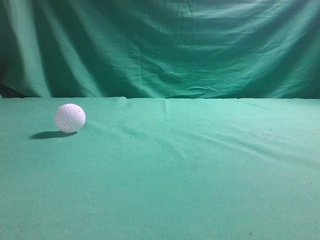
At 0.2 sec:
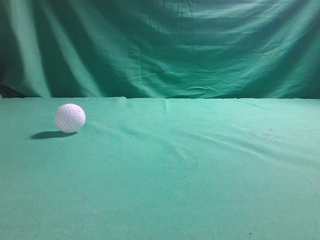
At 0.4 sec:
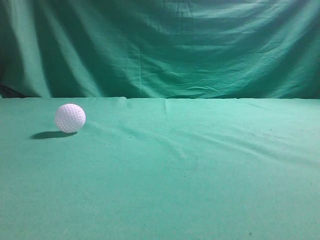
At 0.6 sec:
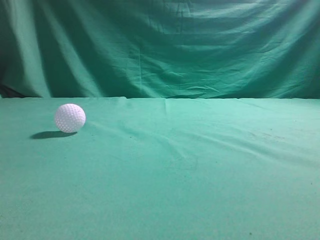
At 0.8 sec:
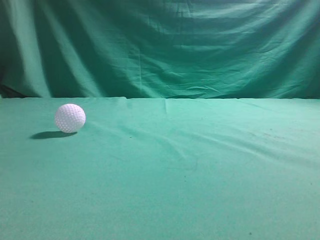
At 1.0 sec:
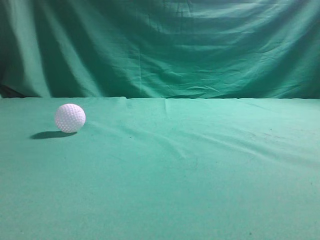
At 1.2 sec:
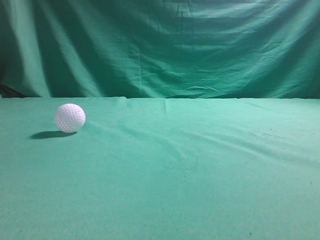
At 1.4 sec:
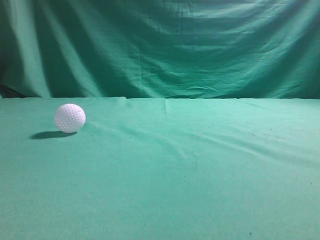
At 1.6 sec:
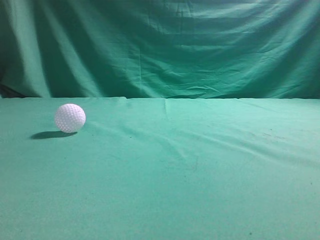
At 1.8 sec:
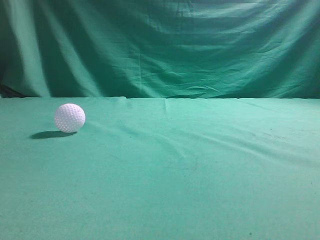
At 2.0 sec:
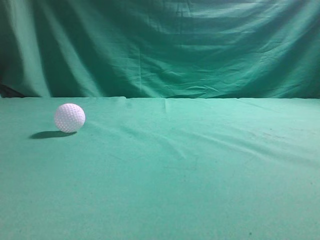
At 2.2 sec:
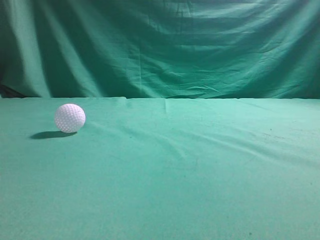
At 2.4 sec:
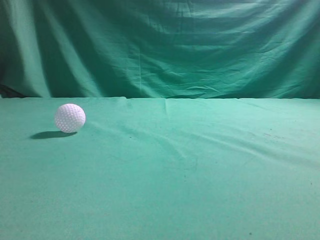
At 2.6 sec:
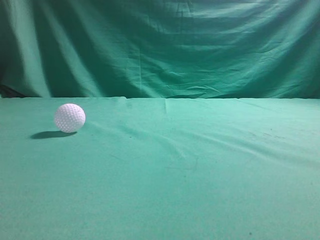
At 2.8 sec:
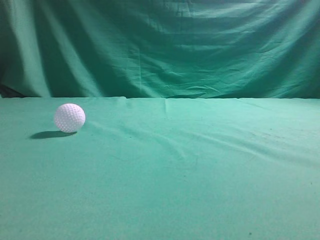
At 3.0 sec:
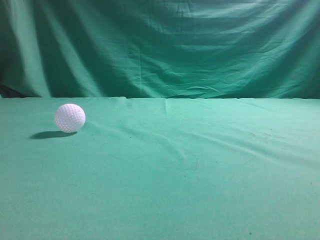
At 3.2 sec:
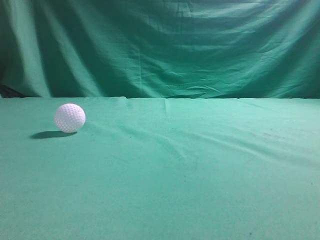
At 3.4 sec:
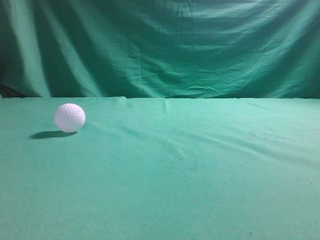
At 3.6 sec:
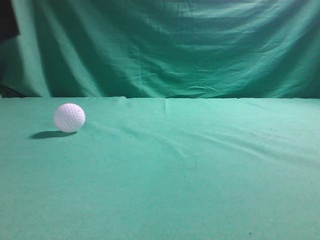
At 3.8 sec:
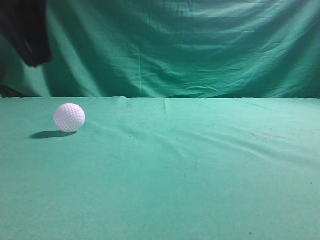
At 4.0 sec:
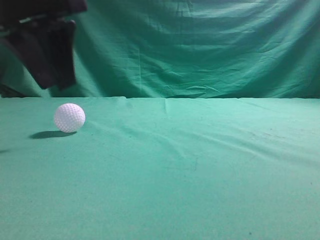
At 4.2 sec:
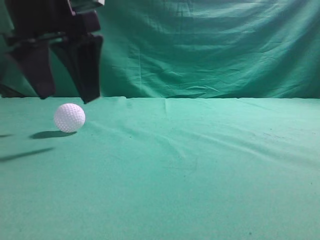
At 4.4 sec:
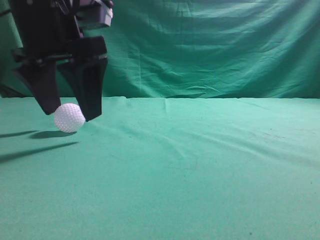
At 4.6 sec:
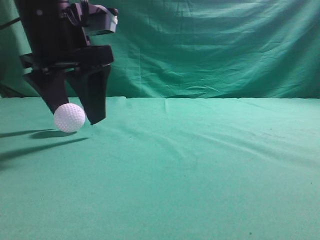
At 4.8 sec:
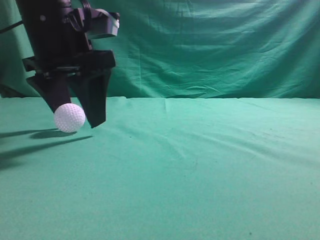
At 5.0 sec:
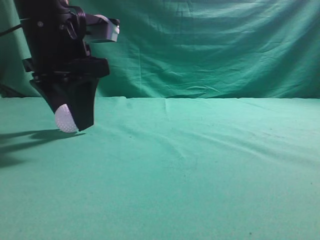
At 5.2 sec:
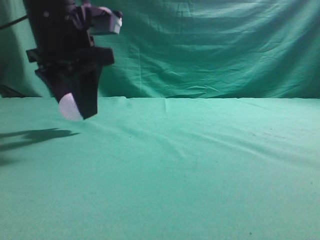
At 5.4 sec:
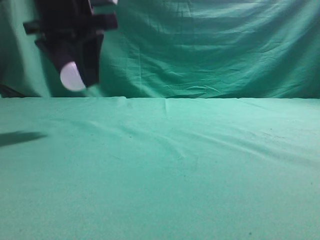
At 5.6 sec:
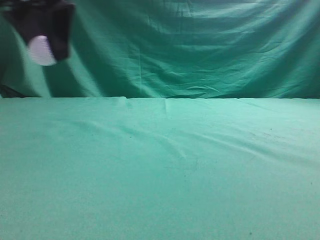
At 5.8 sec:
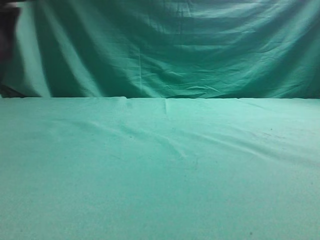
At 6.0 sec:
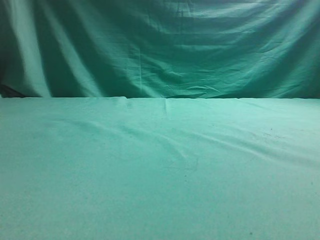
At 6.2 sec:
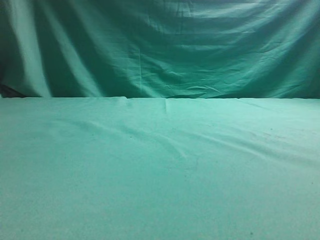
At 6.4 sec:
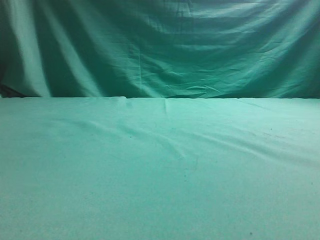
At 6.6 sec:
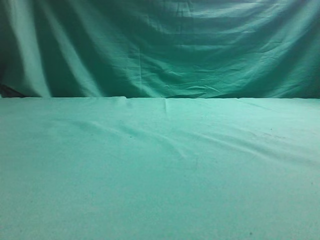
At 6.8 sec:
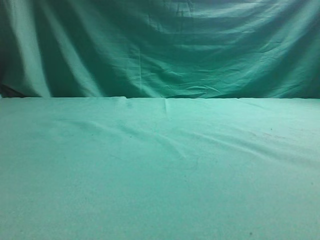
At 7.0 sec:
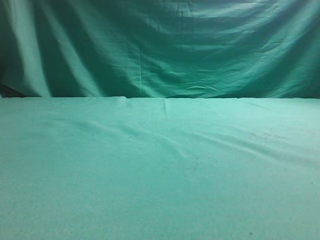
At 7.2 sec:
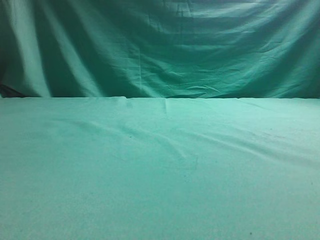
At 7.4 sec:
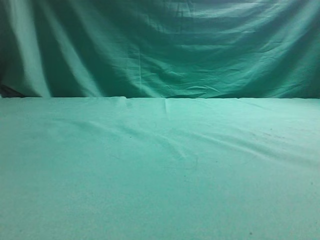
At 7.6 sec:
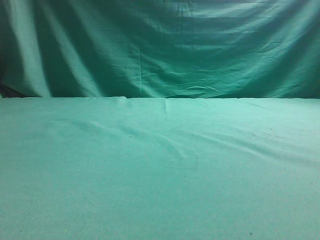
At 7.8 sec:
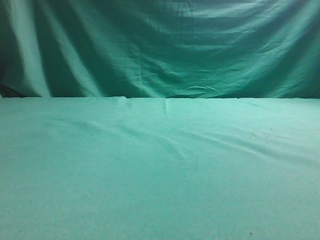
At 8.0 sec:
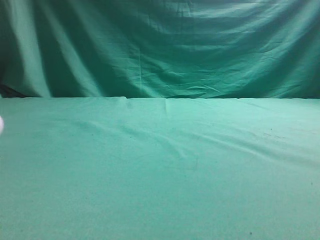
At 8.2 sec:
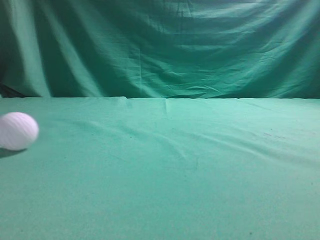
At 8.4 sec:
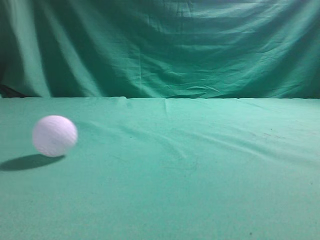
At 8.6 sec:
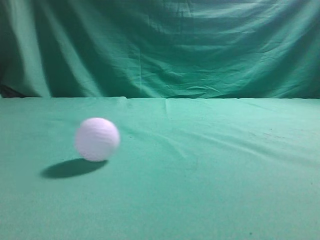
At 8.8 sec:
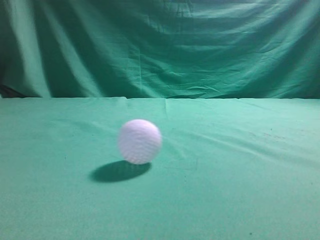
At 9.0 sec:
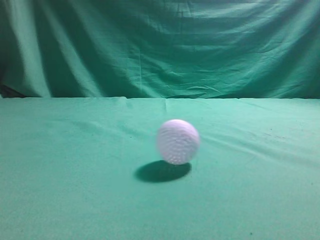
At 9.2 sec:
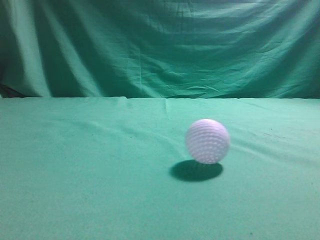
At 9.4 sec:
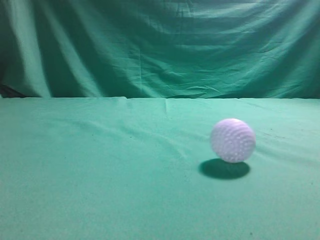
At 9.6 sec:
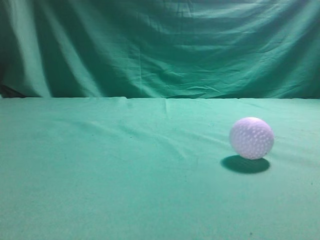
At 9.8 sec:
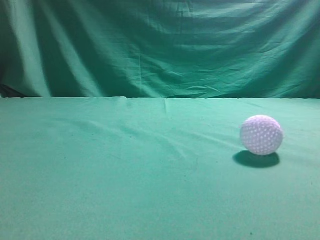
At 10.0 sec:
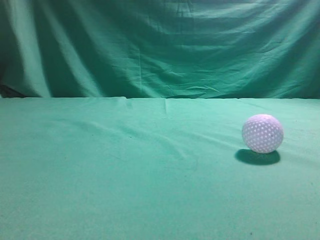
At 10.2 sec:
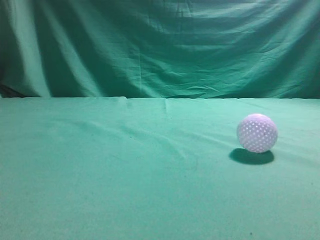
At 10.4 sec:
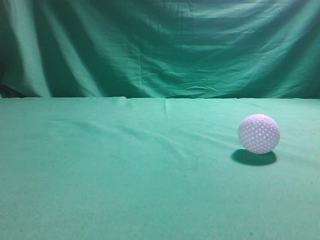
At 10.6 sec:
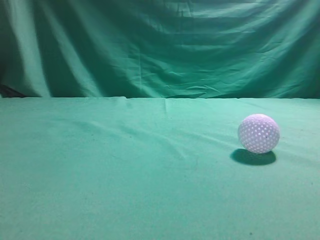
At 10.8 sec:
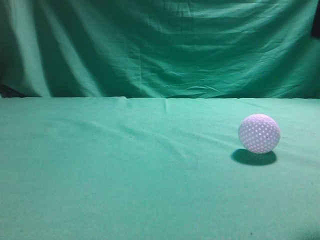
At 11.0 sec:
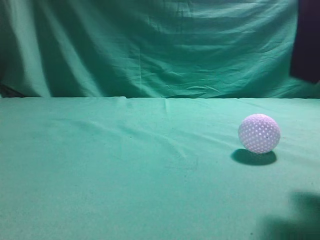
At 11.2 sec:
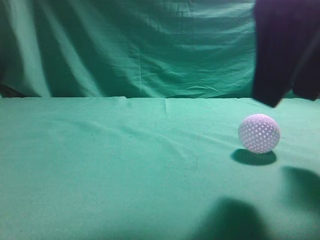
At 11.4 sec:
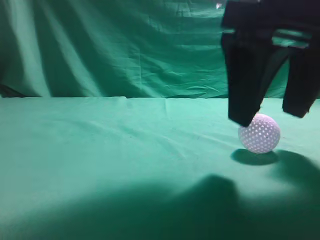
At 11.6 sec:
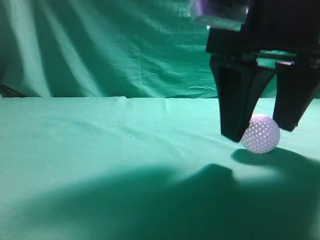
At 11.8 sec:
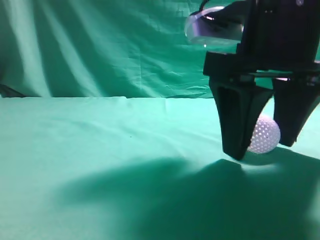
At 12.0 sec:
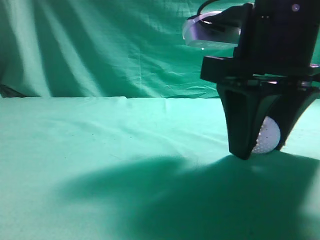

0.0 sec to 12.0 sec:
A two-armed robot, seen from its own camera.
Task of the whole recording: pick up the ball and place it on the plate, then pick up the ball from the plate and put it in the center of the table.
Step, 0.0 sec to 5.2 sec: Grab the spherical object with your left arm.
Step, 5.4 sec to 7.4 sec: Place the sphere on the white object.
3.0 sec to 4.4 sec: The left gripper is displaced forward, to the right and downward by approximately 25 cm, and opens its fingers.
4.4 sec to 6.0 sec: The left gripper travels to the left and upward by approximately 20 cm, and closes.
7.6 sec to 9.0 sec: The left gripper shifts approximately 30 cm backward and upward, and closes.
9.0 sec to 10.4 sec: The right gripper moves upward, forward and to the left, approximately 15 cm, while the left gripper heads downward, covering roughly 10 cm.
10.4 sec to 12.0 sec: The right gripper goes about 20 cm downward, forward and to the left, and opens up.

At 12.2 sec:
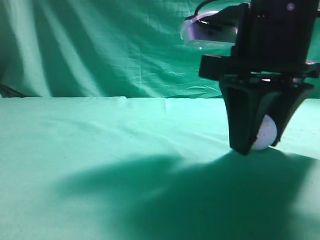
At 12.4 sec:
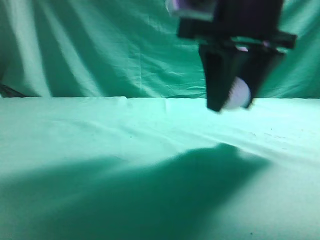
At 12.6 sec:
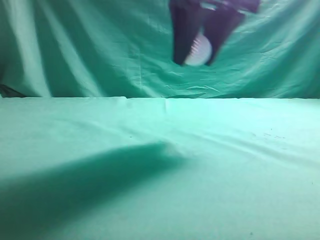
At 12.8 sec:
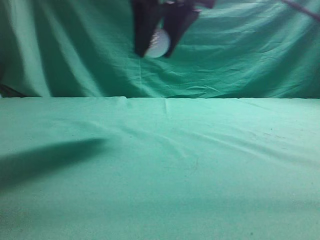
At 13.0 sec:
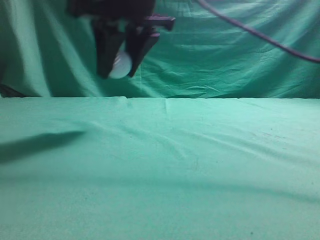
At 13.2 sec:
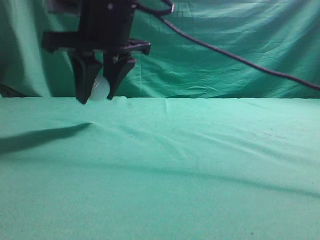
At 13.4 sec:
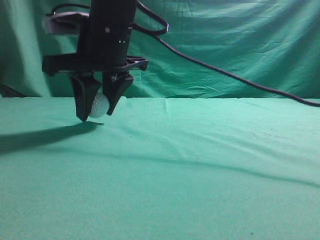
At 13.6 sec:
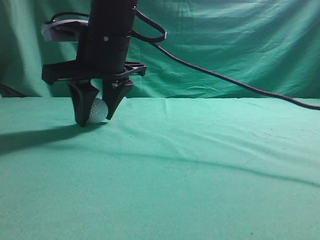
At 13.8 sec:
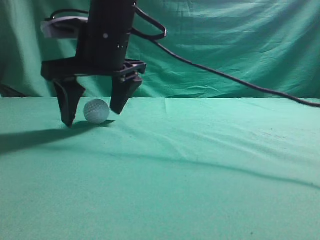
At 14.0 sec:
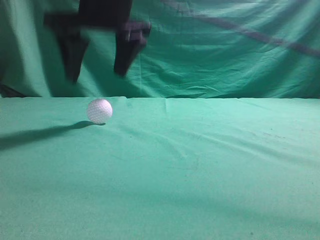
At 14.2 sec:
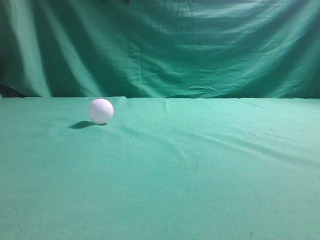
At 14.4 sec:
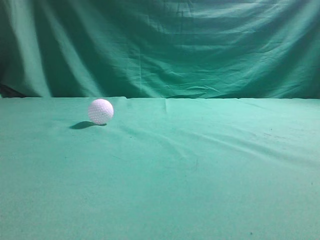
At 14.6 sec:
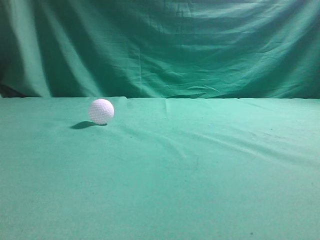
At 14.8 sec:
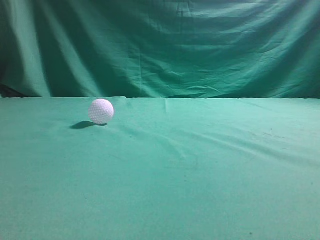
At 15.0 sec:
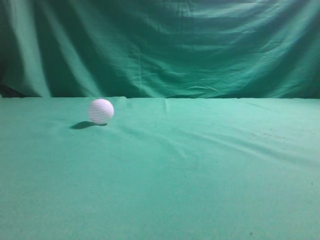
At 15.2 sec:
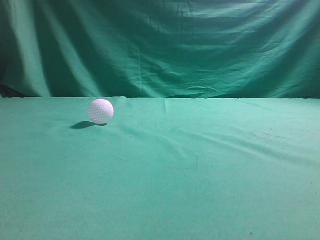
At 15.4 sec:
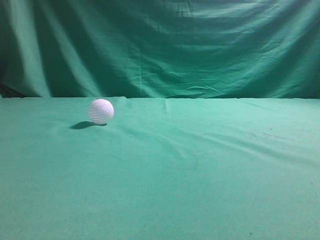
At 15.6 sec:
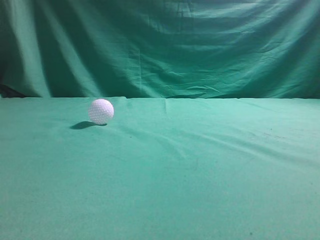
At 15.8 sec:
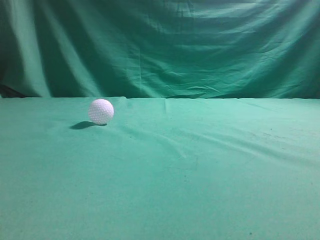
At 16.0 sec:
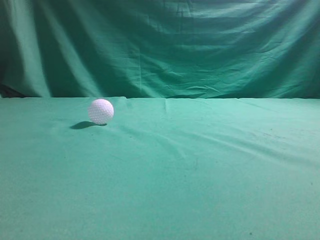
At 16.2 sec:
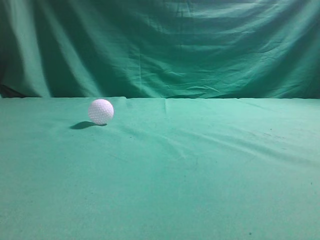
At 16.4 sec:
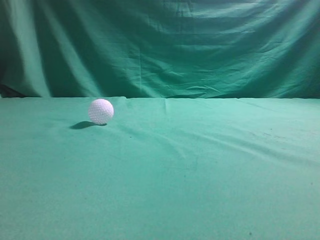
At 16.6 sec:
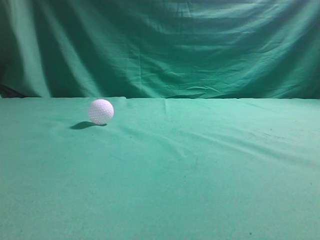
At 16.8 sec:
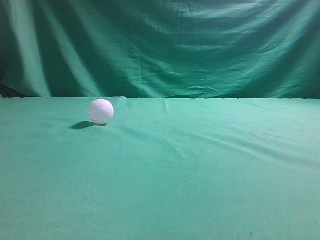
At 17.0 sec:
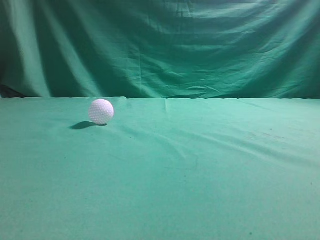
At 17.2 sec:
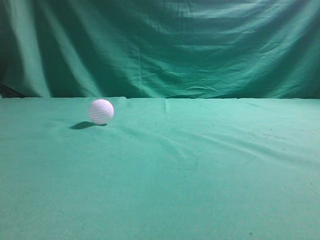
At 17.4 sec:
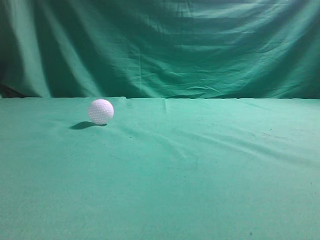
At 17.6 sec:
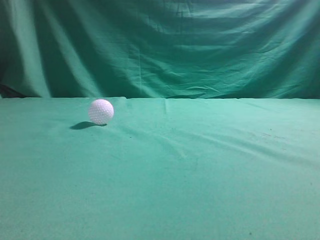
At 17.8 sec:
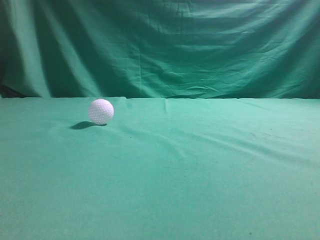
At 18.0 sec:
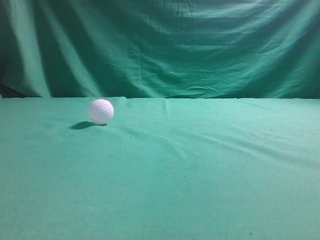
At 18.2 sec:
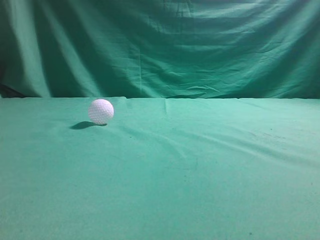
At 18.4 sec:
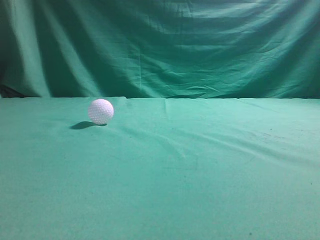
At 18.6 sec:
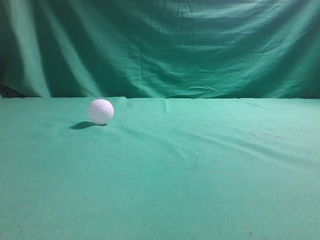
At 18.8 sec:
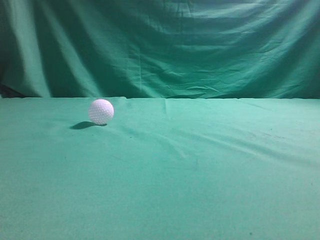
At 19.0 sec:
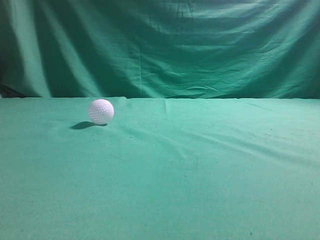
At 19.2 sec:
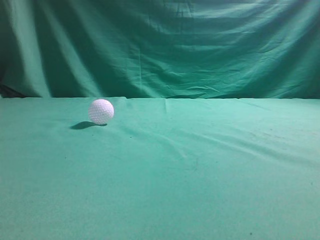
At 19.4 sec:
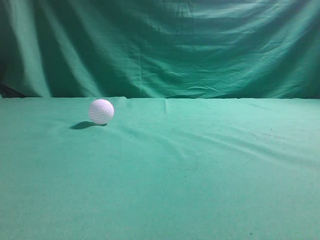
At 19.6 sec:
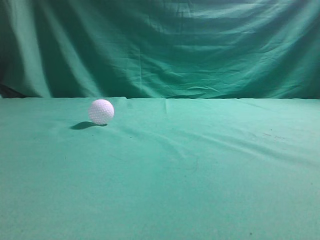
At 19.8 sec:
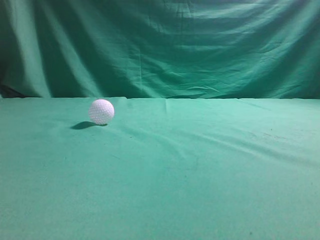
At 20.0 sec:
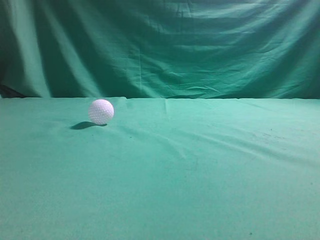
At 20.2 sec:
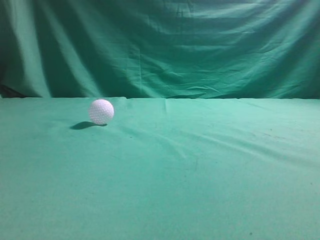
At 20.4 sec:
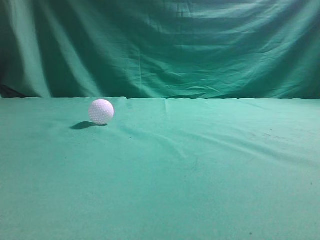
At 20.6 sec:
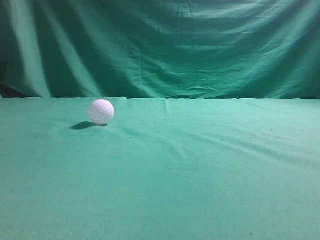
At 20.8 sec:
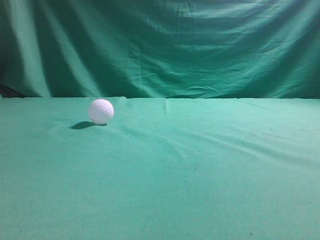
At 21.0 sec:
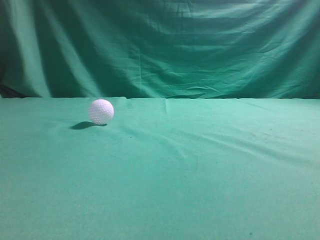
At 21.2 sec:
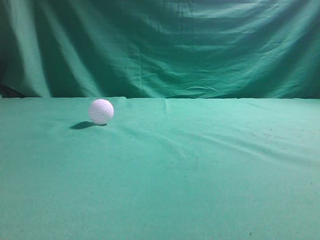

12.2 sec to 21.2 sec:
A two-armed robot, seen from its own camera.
Task of the whole recording: pick up the ball and place it on the plate, then pick up the ball from the plate and put it in the center of the table.
Step, 12.4 sec to 13.8 sec: Put the picked-up object on the table.
12.2 sec to 13.8 sec: The right gripper shifts some 20 cm to the left and forward, and opens.
13.8 sec to 15.2 sec: The right gripper shifts some 40 cm upward, to the right and backward, and closes.
